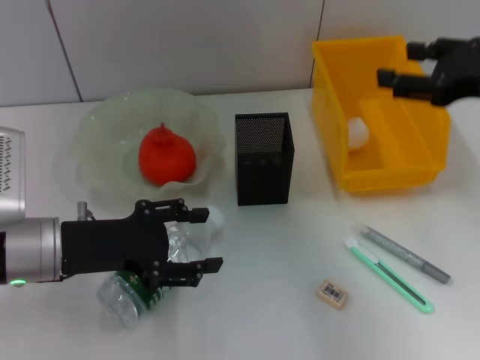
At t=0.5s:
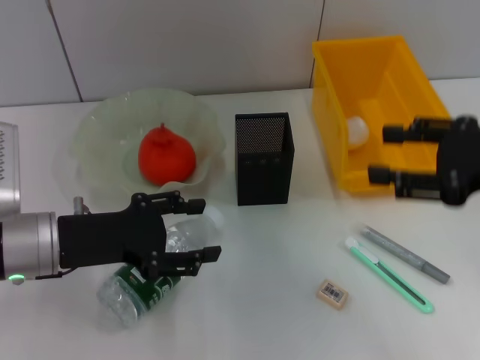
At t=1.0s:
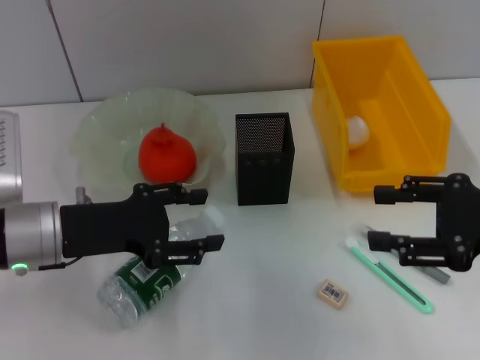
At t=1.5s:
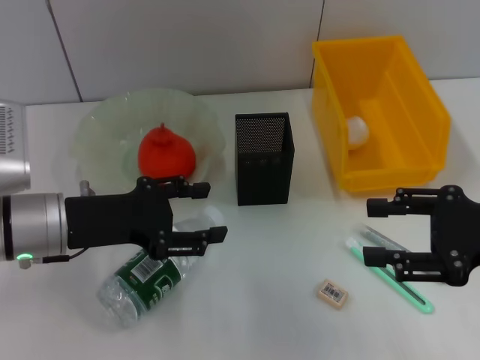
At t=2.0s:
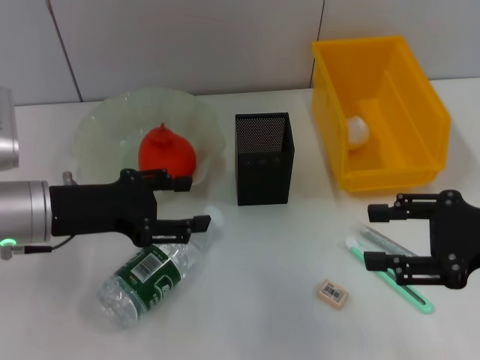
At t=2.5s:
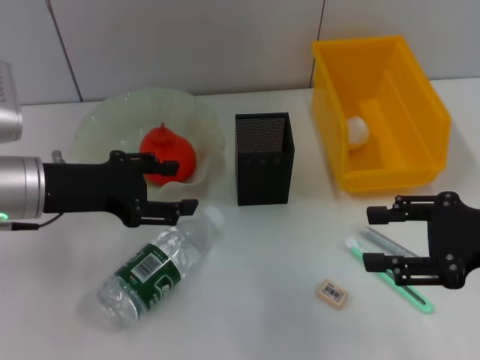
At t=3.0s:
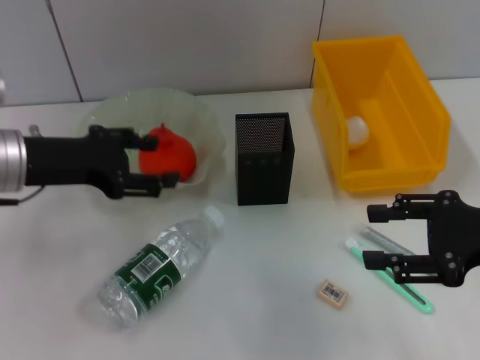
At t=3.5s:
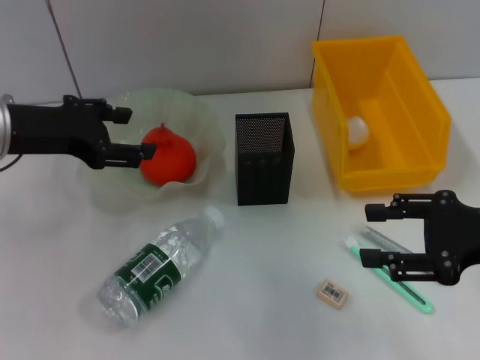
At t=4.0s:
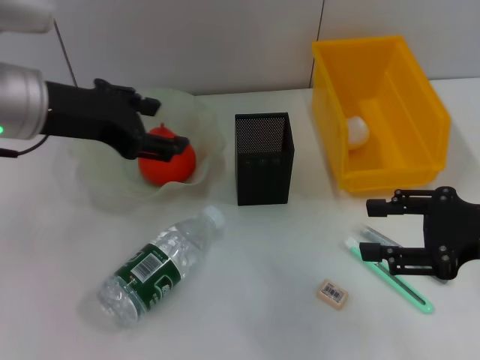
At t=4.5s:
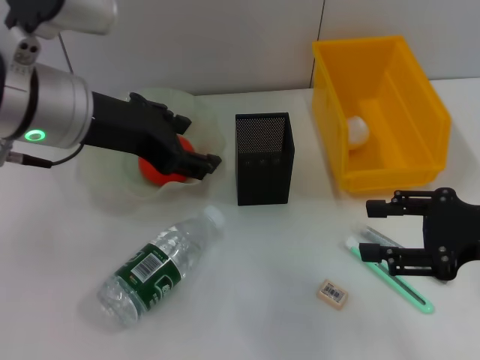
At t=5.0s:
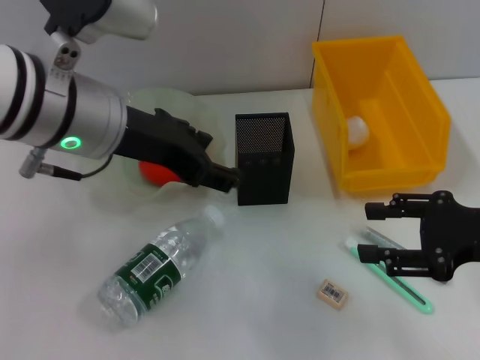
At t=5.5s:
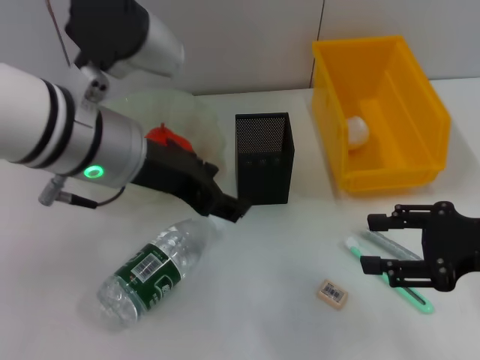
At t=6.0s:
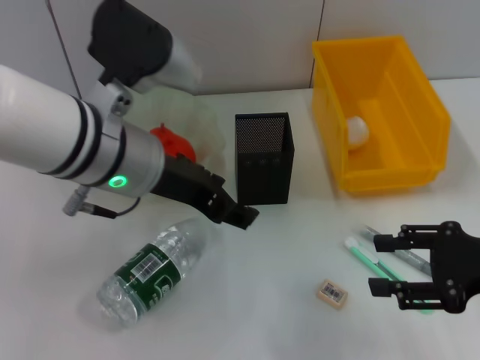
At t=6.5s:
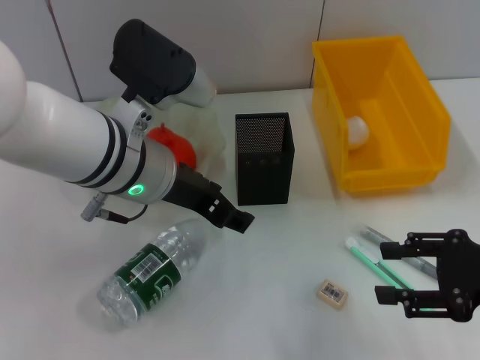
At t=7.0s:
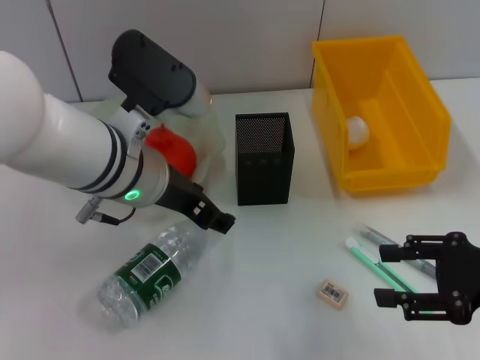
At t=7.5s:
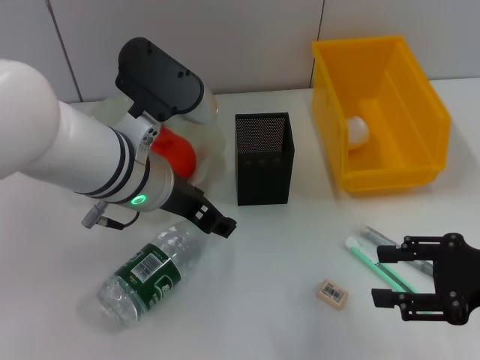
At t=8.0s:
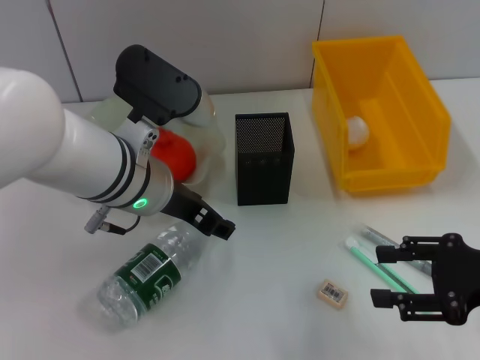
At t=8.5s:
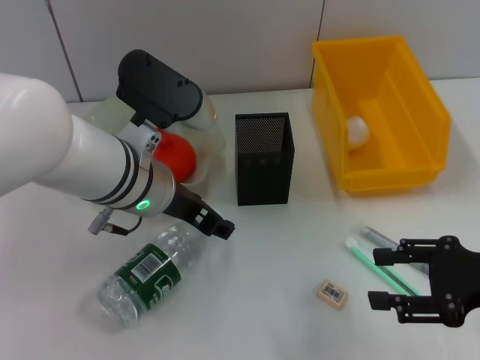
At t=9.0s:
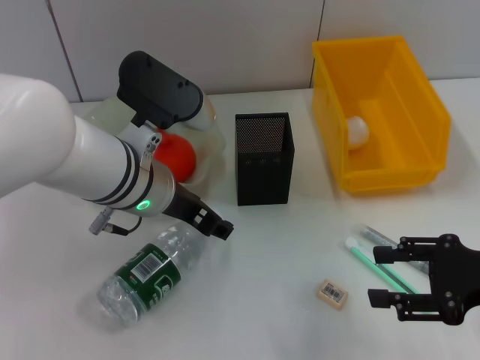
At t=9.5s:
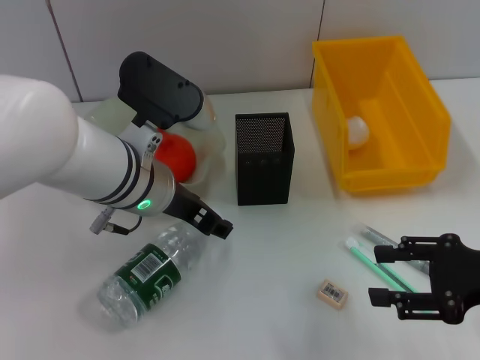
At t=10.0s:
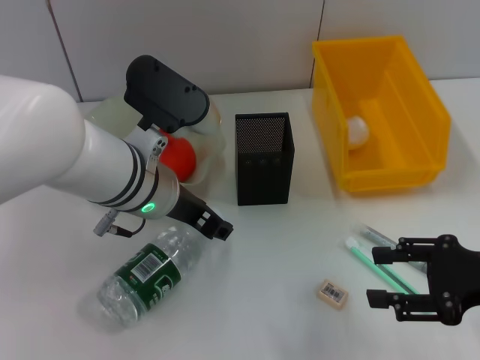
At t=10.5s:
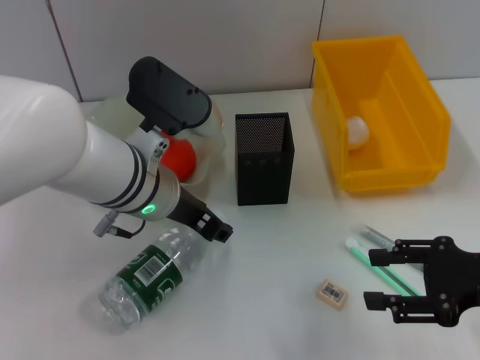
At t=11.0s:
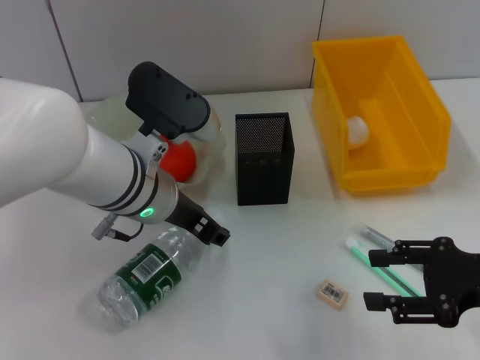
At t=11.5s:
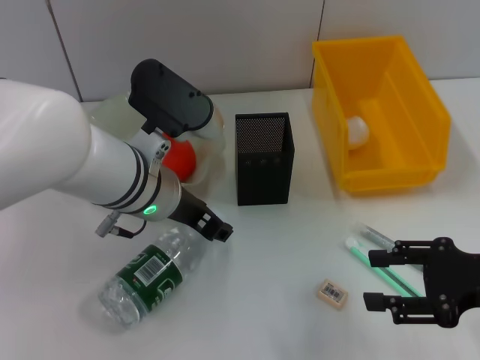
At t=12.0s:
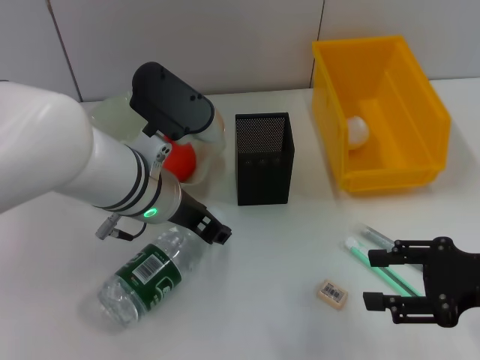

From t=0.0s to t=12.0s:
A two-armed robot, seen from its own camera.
From t=0.0s to t=2.0s: The right gripper is displaced backward and downward by roughly 10 cm.
From t=2.0s to t=4.0s: The left gripper moves upward, about 10 cm.
From t=4.0s to t=6.0s: The left gripper is displaced to the right by some 10 cm.
From t=6.0s to t=8.0s: The left gripper heads downward, covering about 5 cm.
From t=8.0s to t=10.0s: The grippers stay close to where they were, moving slightly.
From t=10.0s to t=12.0s: Neither gripper changes place.

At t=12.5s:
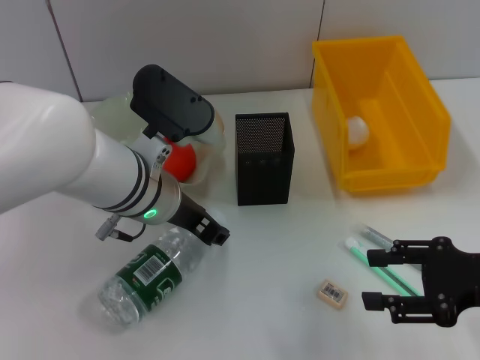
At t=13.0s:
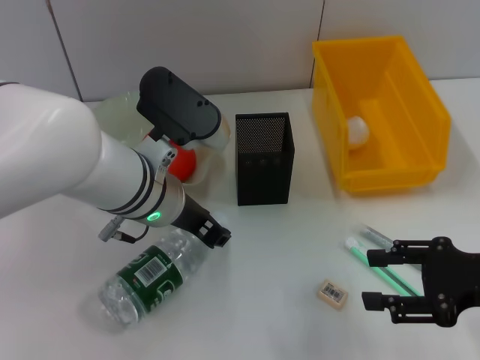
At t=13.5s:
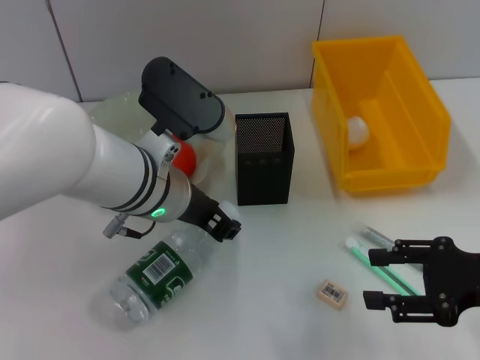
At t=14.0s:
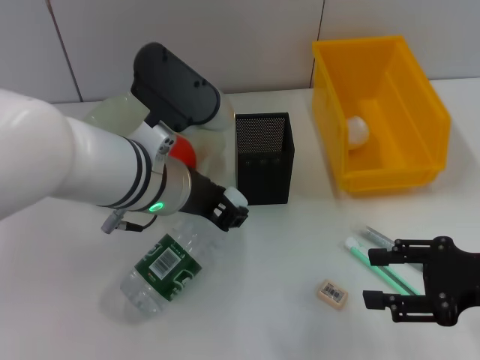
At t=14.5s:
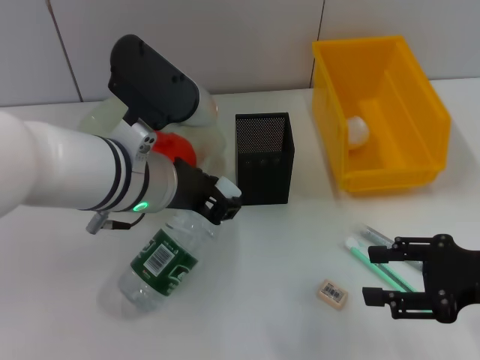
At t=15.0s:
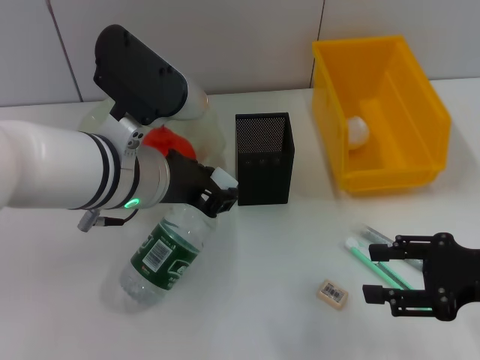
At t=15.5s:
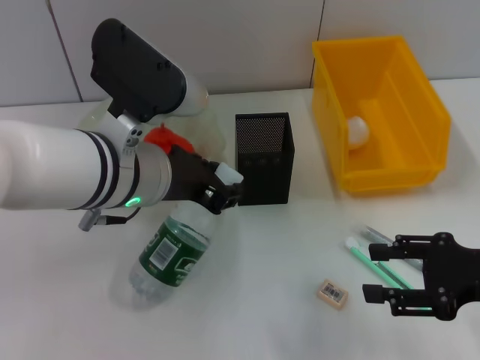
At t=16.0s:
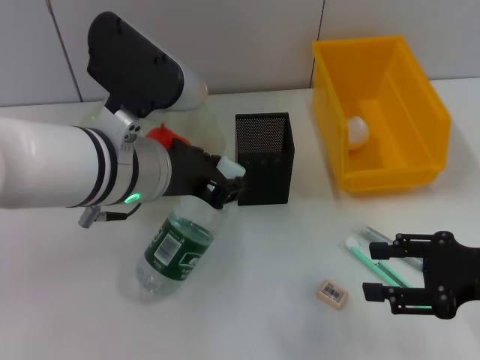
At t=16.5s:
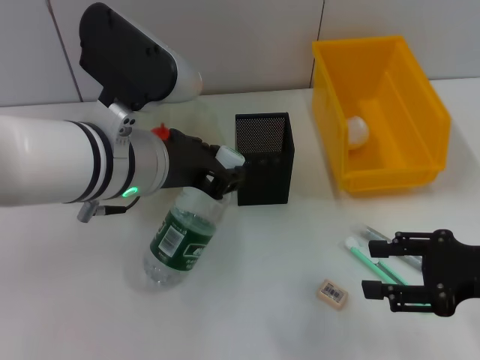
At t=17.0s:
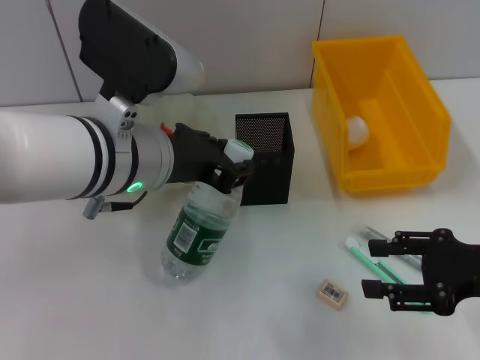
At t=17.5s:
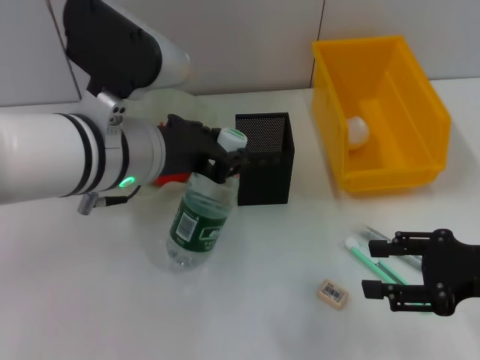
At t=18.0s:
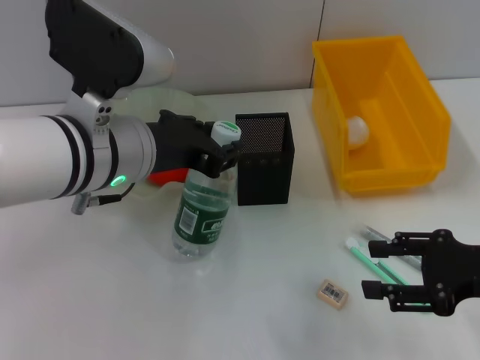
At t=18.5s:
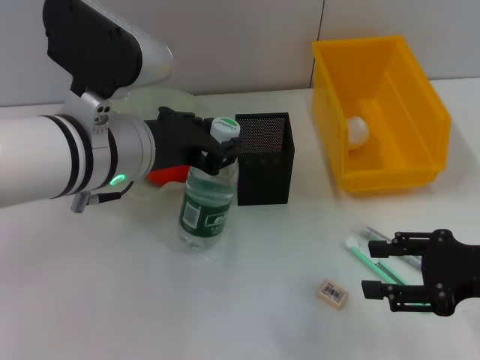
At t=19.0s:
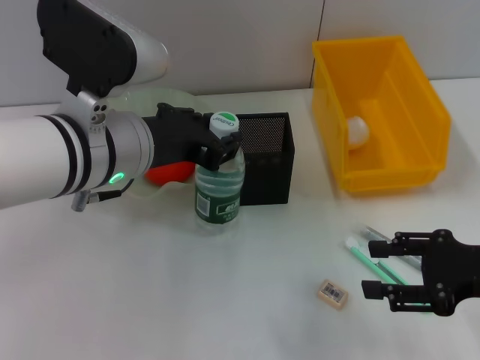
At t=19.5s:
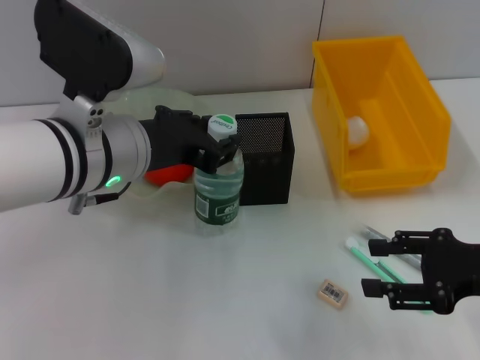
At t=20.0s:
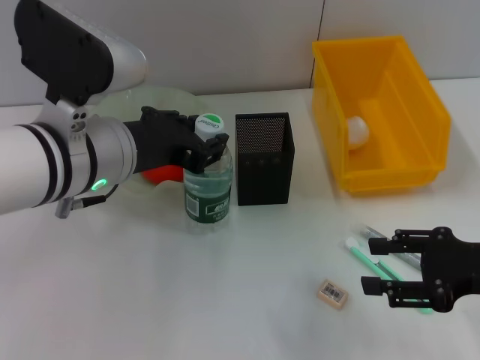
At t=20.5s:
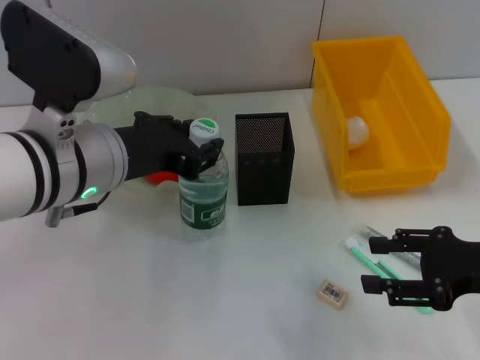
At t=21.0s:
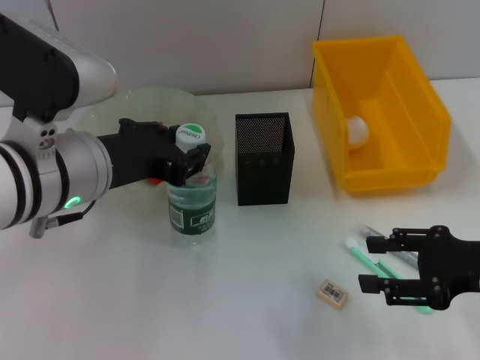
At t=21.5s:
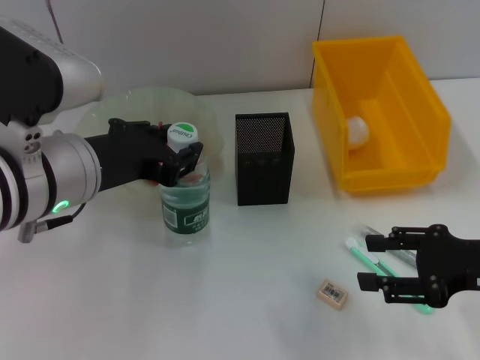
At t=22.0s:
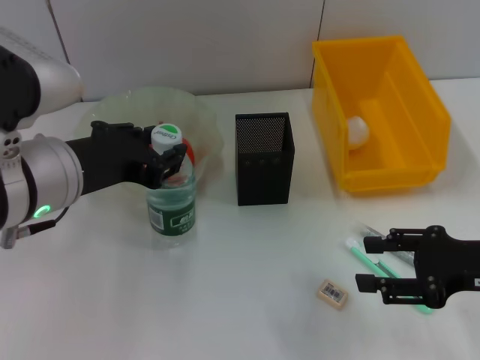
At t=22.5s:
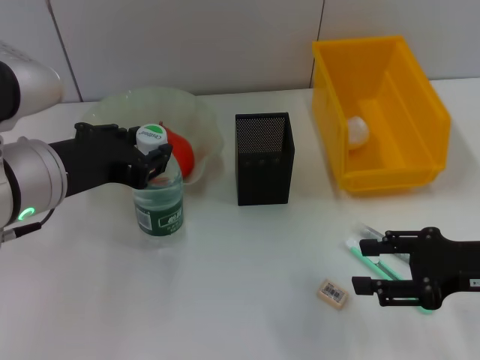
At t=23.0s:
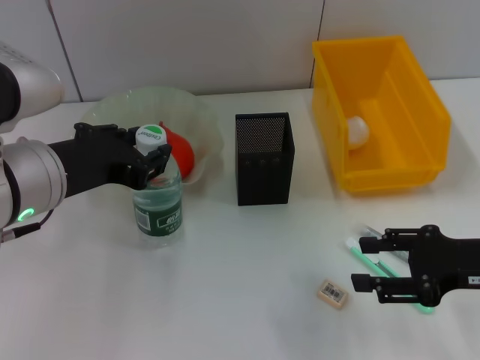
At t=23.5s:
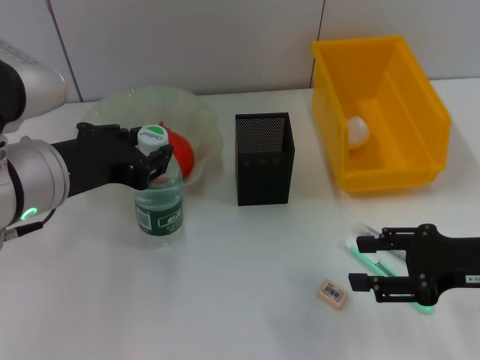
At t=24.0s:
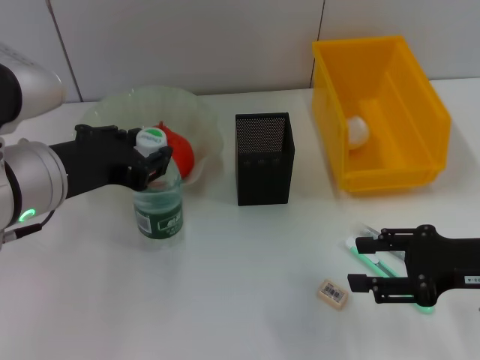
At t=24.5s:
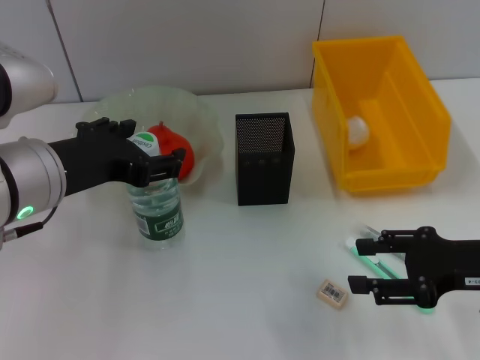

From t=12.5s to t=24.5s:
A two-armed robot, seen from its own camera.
From t=12.5s to t=14.5s: There are only small adjustments of the grippers.
From t=14.5s to t=20.5s: The grippers move only a little.
From t=20.5s to t=22.5s: The grippers make only small movements.
From t=22.5s to t=24.5s: The left gripper opens its fingers.

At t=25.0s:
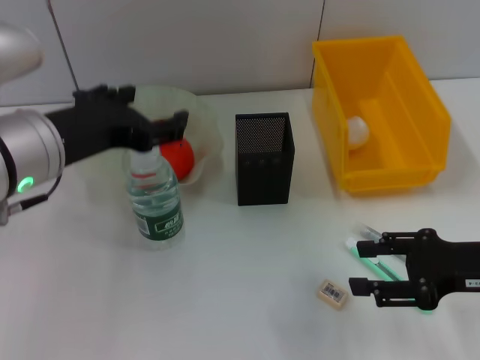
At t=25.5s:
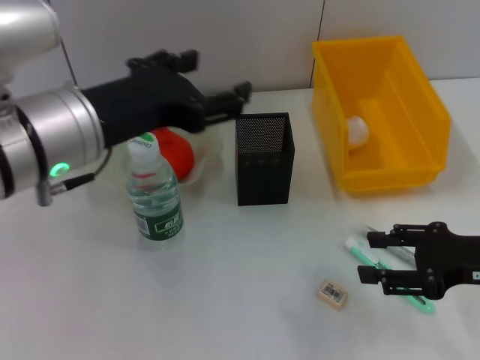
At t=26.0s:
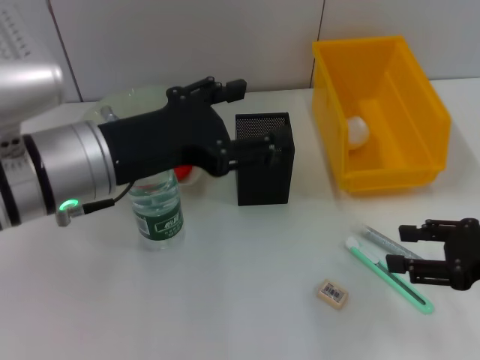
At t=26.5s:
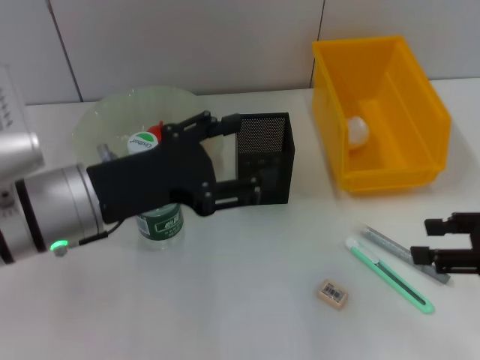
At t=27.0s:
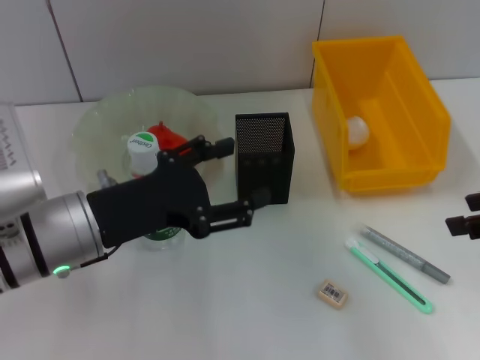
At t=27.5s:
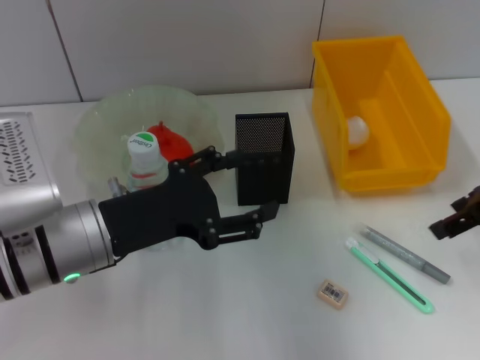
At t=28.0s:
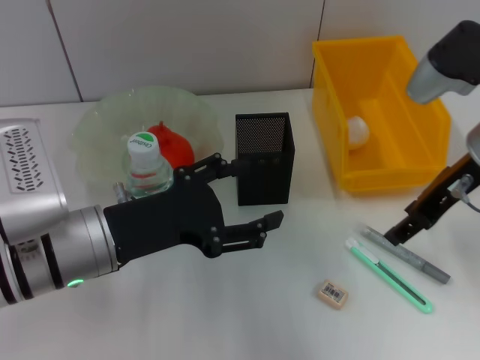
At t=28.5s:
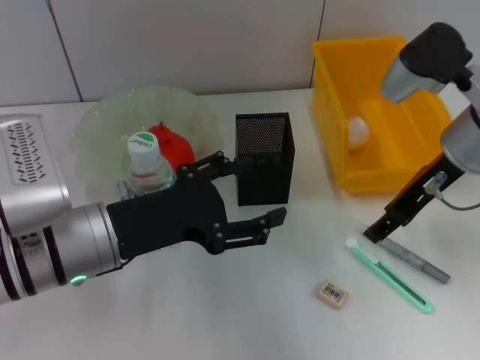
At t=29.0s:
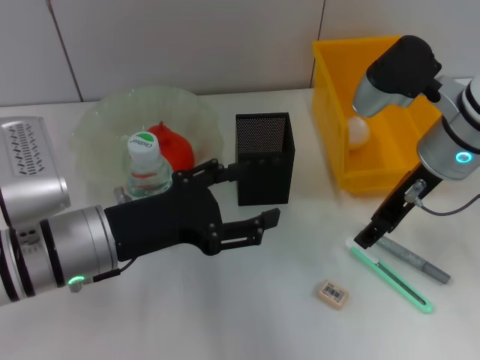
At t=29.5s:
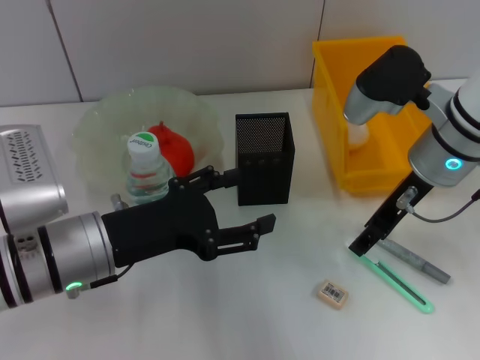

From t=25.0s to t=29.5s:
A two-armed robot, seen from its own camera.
From t=25.0s to t=27.0s: The right gripper heads upward, covering some 10 cm; the left gripper is displaced downward by roughly 10 cm.
From t=27.0s to t=29.5s: The right gripper travels to the left and forward by roughly 20 cm.
